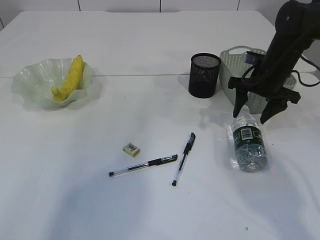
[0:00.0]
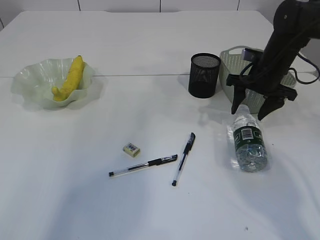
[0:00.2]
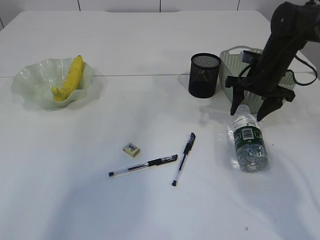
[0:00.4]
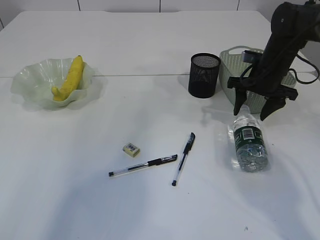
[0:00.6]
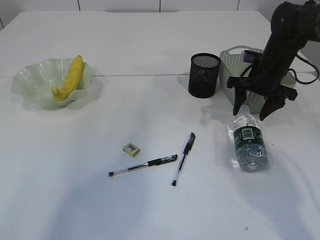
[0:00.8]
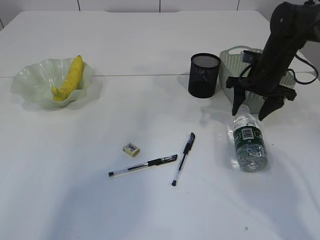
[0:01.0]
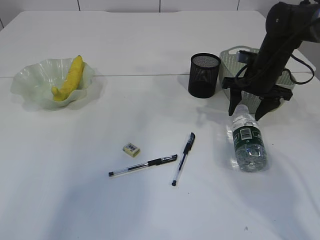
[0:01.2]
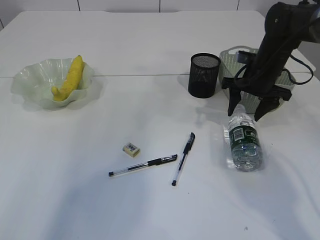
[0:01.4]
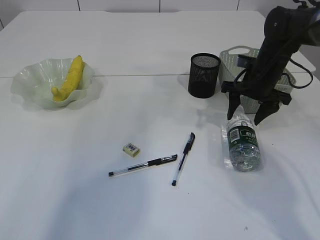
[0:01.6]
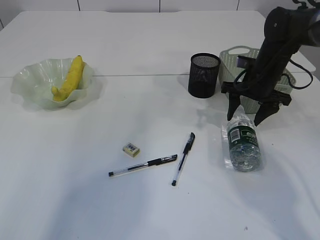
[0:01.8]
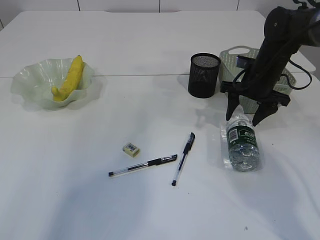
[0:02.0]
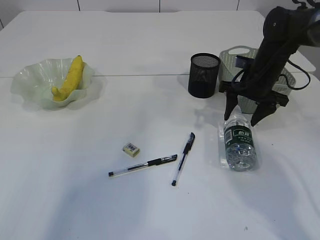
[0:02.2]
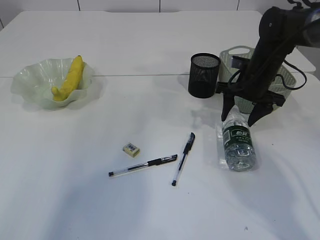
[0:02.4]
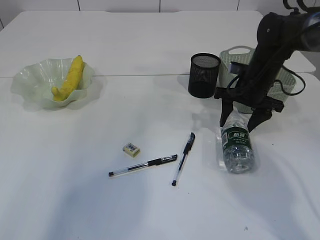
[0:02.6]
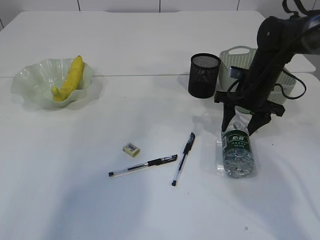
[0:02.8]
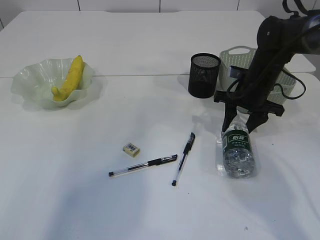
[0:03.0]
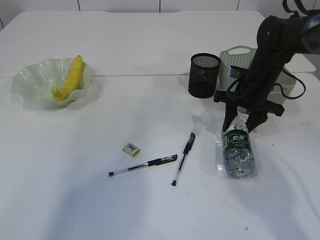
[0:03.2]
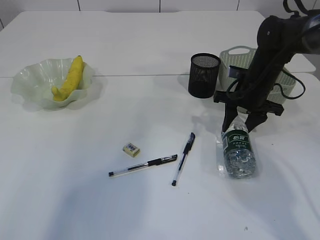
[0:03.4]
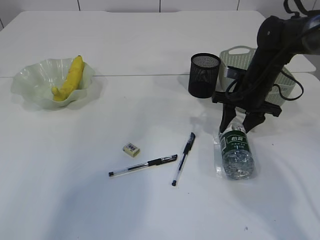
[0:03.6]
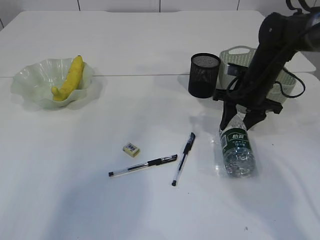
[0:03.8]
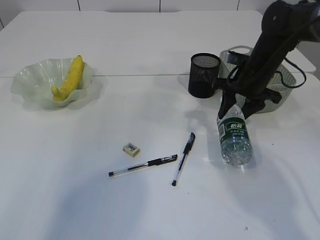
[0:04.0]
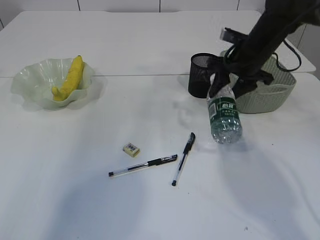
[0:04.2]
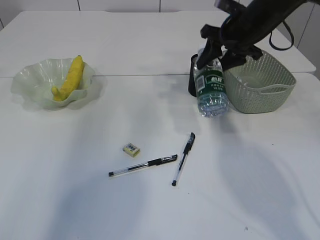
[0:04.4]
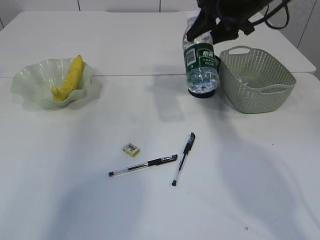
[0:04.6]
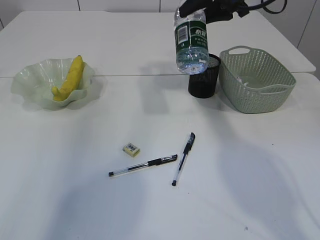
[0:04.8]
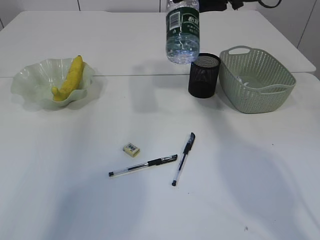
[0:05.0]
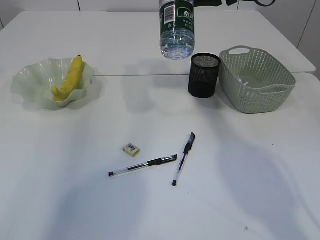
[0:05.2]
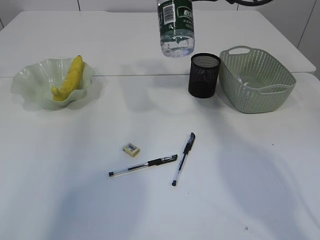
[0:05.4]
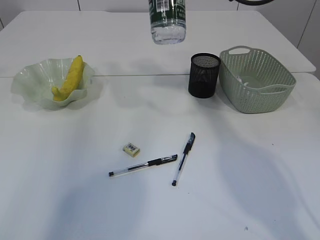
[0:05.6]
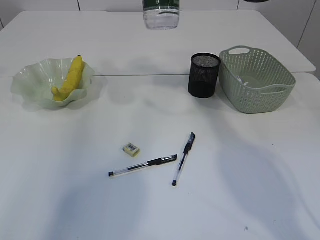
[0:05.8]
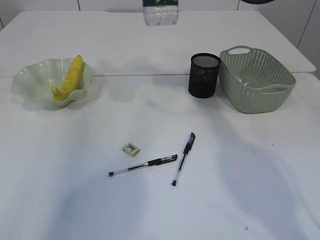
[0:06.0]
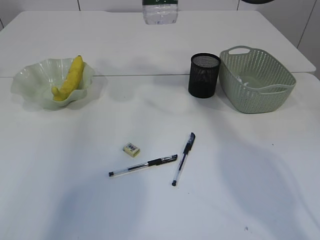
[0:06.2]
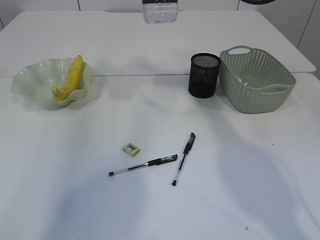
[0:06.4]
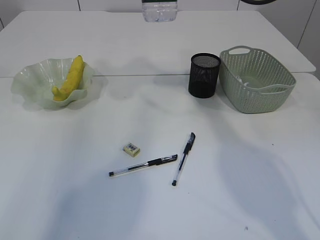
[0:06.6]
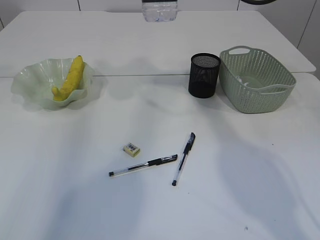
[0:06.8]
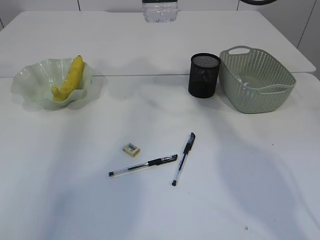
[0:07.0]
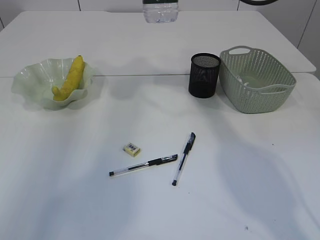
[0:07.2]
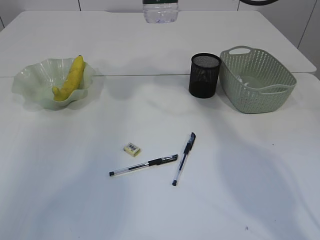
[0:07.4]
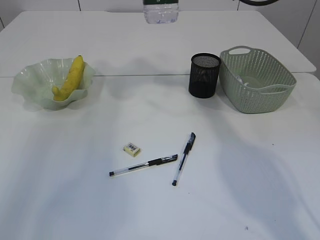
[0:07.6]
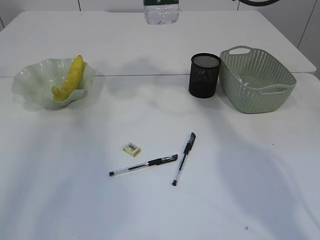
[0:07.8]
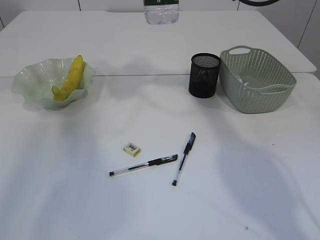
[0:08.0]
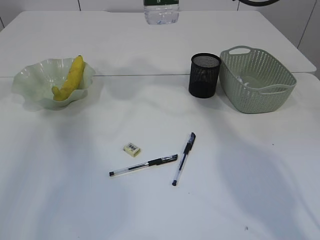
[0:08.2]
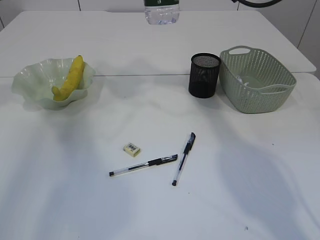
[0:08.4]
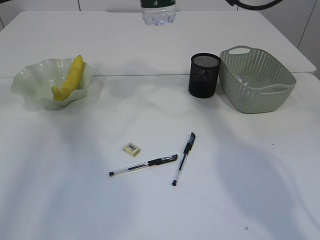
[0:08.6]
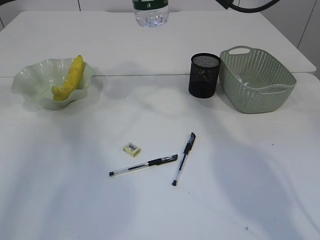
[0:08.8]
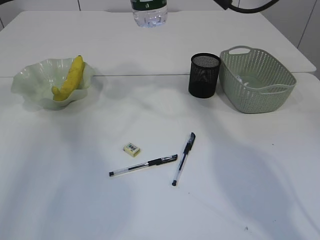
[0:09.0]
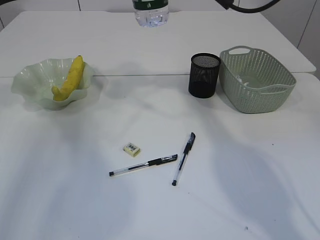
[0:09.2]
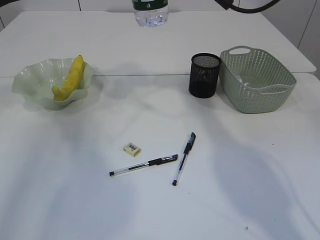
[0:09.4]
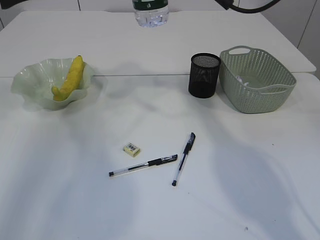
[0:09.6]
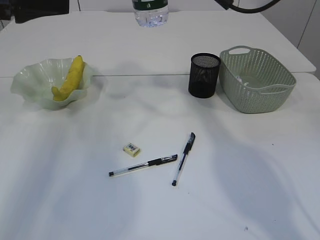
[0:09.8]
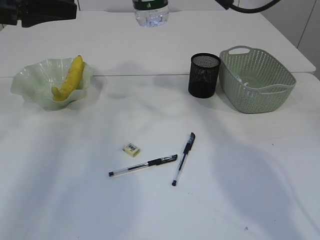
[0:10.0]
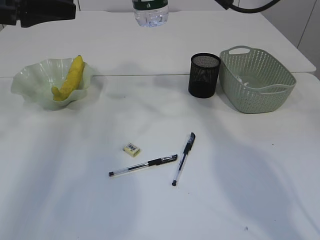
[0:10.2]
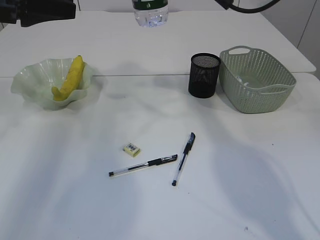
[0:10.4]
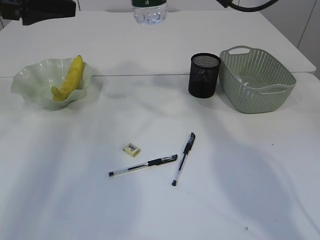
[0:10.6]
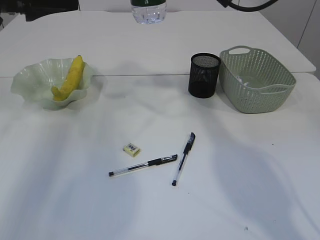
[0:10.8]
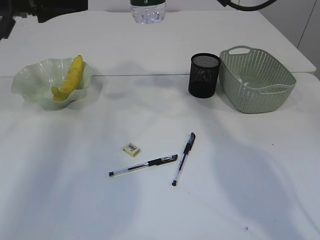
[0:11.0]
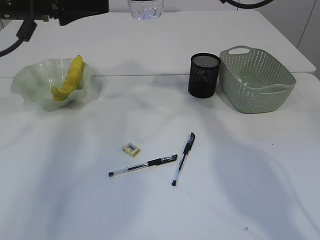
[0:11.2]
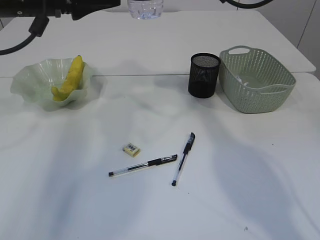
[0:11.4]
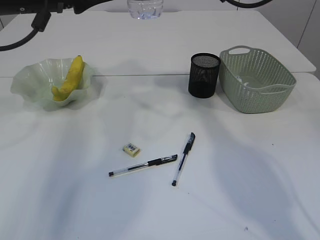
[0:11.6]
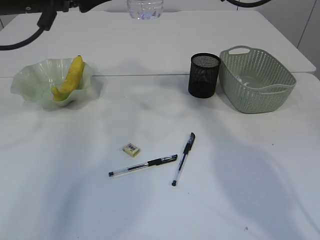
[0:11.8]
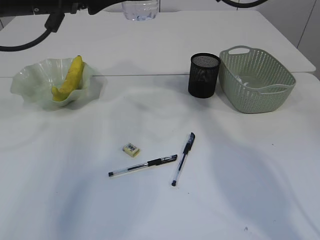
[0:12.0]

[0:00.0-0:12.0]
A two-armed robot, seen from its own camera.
Step, 0:00.0 to 0:04.0: Pick up the bottle with the right arm.
0:00.0 to 0:03.0: The grippers move only a little.
0:03.0 to 0:04.4: The right gripper travels upward by about 10 cm.
0:04.4 to 0:06.0: The right gripper goes some 15 cm upward.
0:07.6 to 0:09.0: The left gripper heads downward, covering some 15 cm.
0:09.0 to 0:10.4: The left gripper goes roughly 5 cm to the right.
0:10.4 to 0:12.0: The left gripper moves to the right, some 10 cm, and opens its fingers.

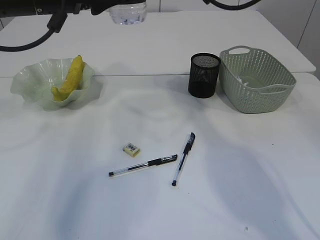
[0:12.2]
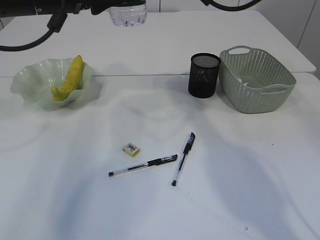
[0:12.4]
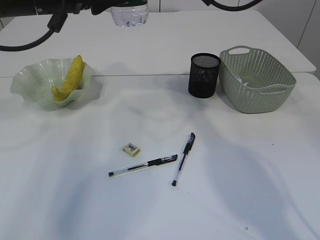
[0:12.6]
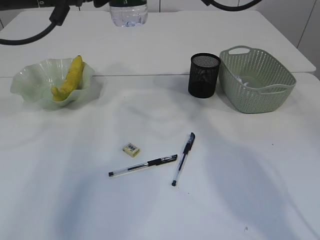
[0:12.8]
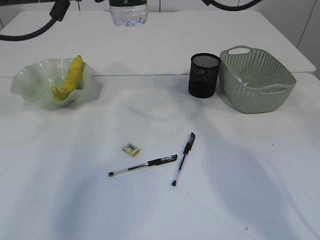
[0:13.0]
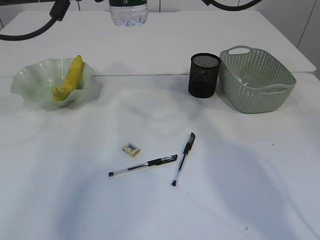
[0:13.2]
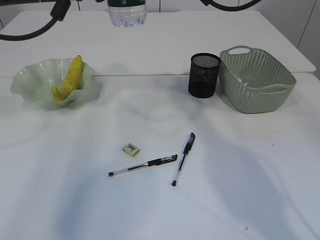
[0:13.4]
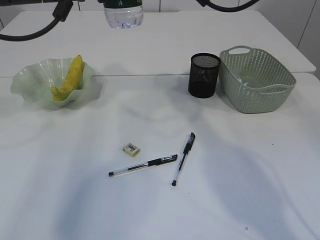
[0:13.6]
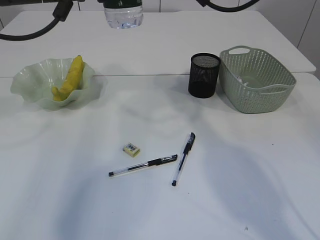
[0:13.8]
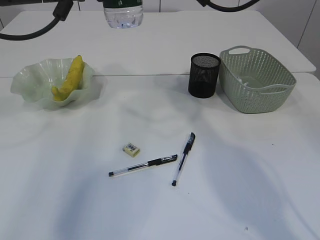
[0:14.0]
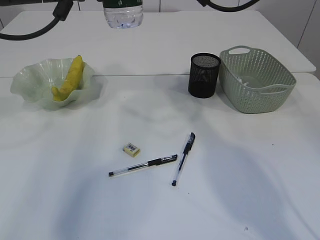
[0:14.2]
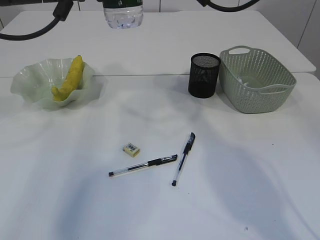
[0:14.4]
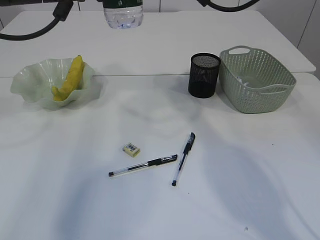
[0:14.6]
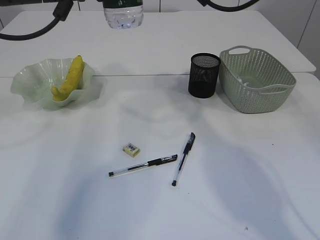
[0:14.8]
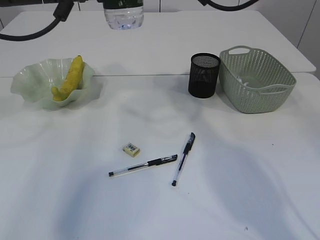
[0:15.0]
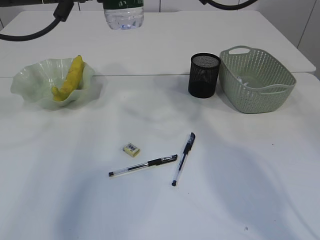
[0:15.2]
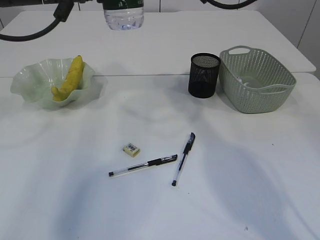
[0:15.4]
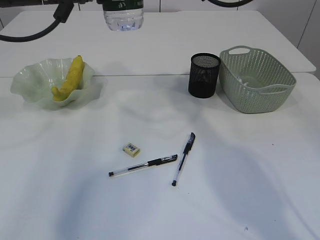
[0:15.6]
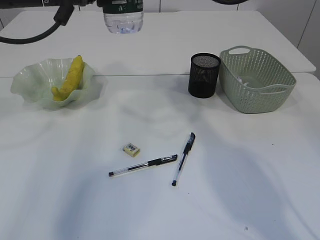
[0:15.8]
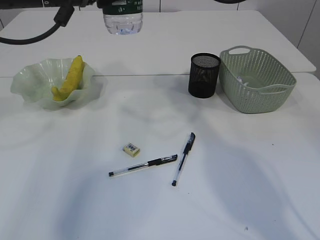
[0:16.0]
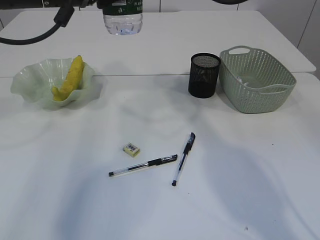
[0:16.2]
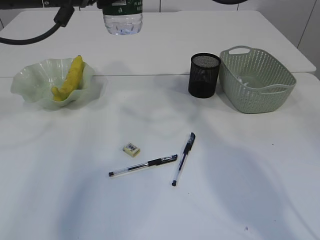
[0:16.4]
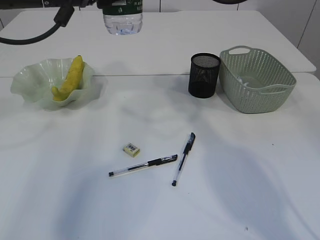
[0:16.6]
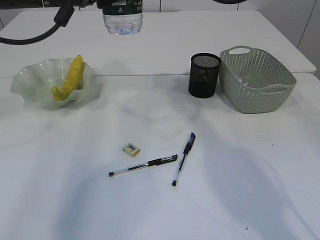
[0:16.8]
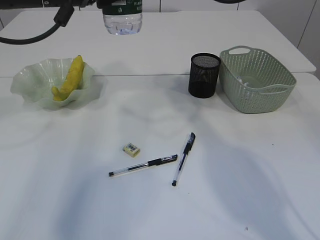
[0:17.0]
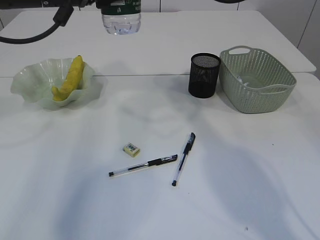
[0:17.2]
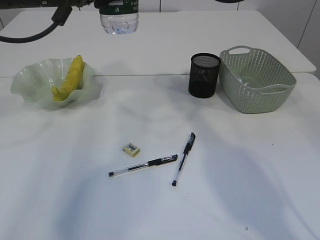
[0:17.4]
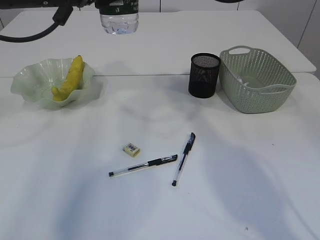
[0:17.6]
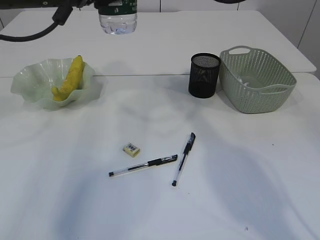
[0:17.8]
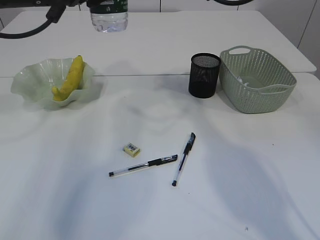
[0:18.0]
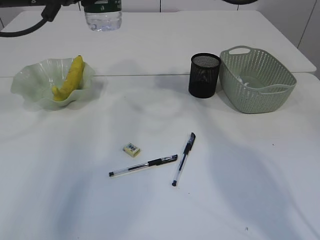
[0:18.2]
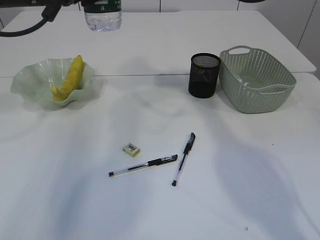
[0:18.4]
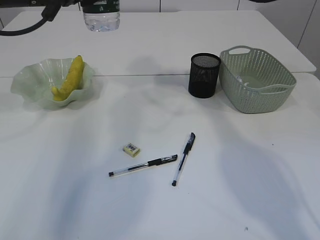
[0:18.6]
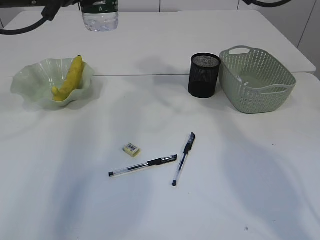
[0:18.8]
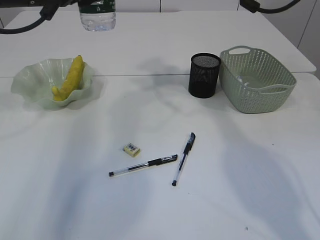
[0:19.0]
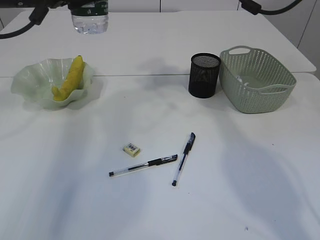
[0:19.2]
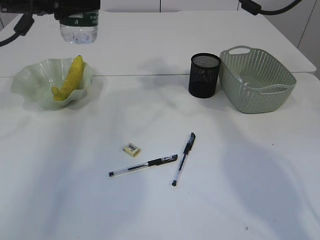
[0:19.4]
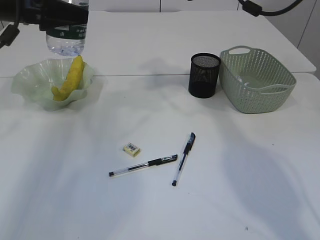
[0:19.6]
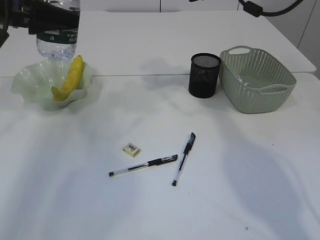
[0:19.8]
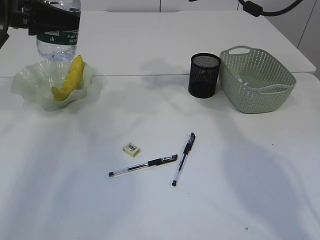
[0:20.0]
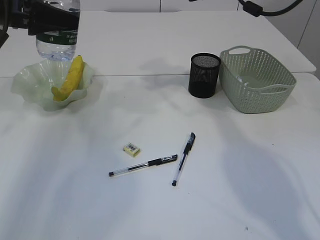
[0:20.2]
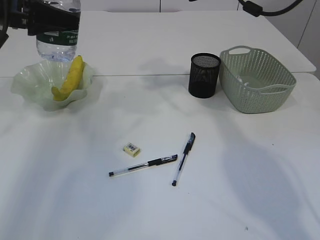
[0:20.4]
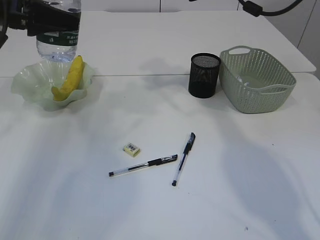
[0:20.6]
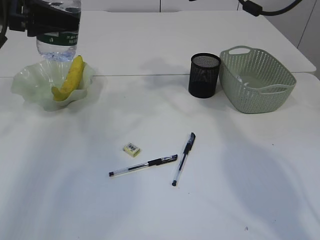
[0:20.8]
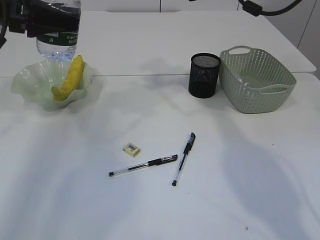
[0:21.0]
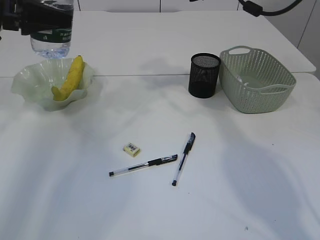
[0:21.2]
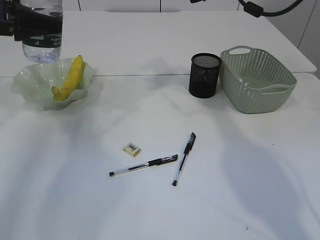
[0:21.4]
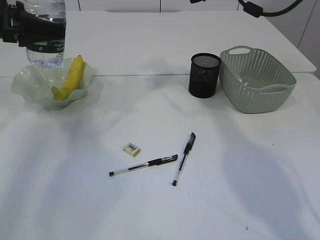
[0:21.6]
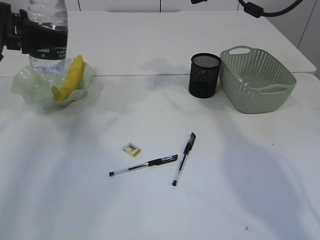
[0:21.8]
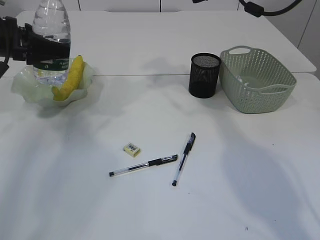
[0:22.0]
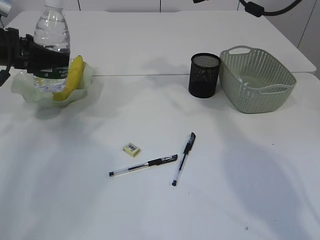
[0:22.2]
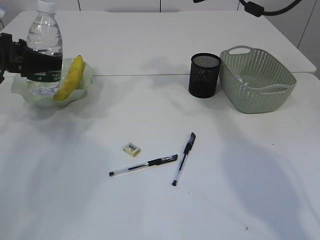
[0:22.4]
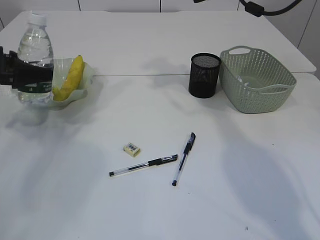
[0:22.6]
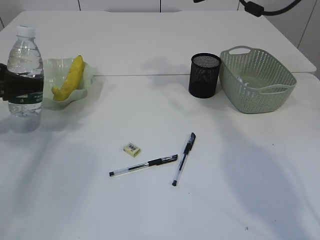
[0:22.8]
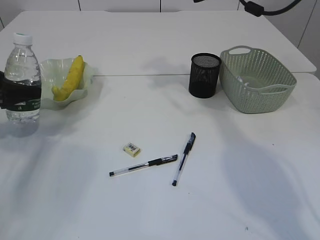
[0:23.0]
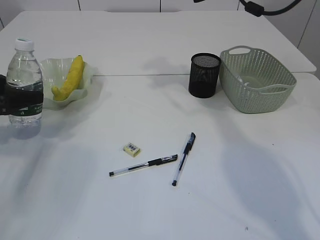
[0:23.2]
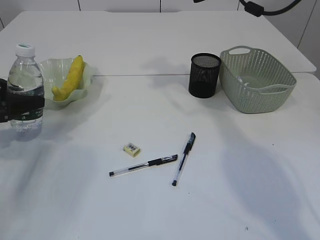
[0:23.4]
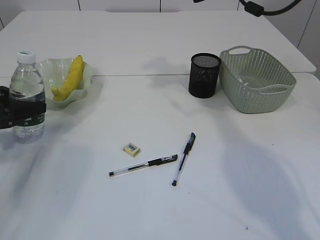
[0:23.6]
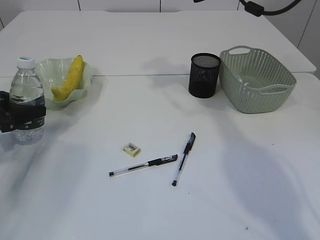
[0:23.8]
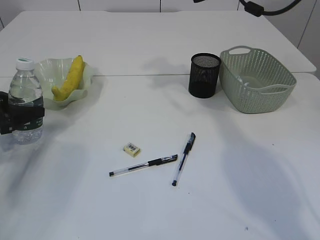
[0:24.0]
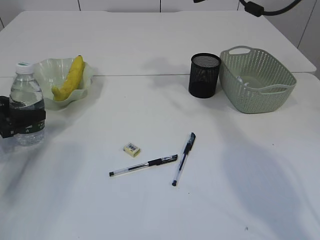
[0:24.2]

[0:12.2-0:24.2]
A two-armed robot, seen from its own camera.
Step, 0:12.2 to 0:18.0: transfer the bottle to the left arm.
0:12.2 to 0:13.8: The grippers move only a little.
0:13.8 to 0:15.2: Both grippers stay about where they are.
0:15.2 to 0:18.2: The grippers move only a little.
0:18.2 to 0:19.8: The right gripper shifts some 5 cm to the right; the left gripper heads to the left, covering roughly 10 cm.
0:19.8 to 0:21.2: The grippers make only small movements.
0:21.2 to 0:22.6: The left gripper is displaced downward and to the left by approximately 15 cm.
0:22.6 to 0:24.2: The left gripper is displaced downward by some 10 cm.
